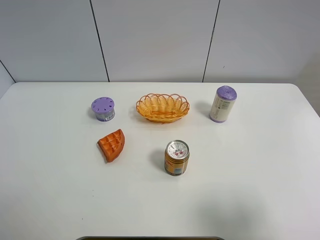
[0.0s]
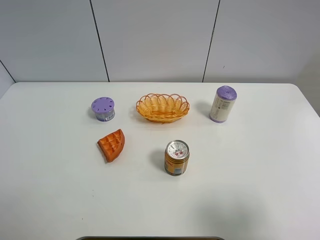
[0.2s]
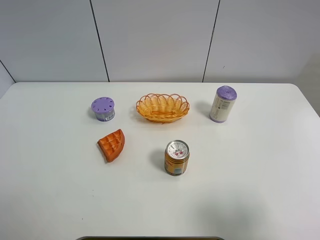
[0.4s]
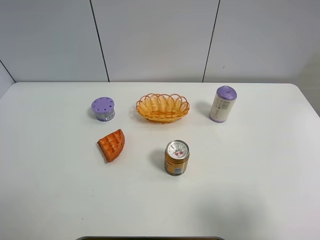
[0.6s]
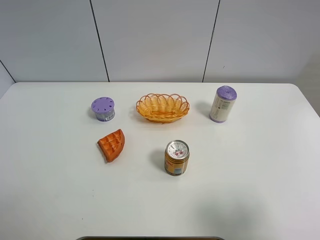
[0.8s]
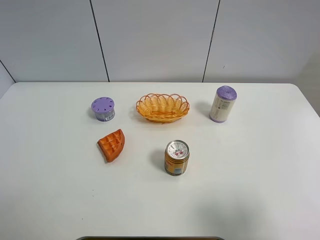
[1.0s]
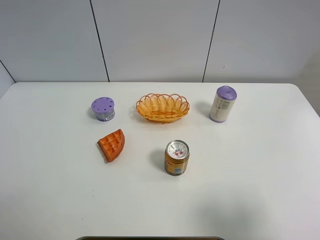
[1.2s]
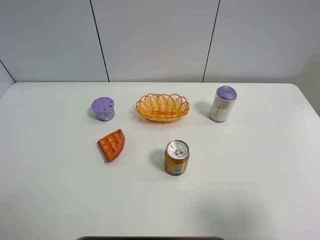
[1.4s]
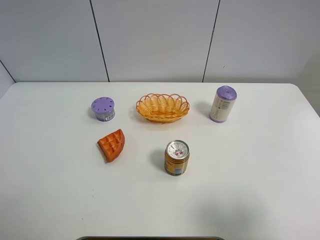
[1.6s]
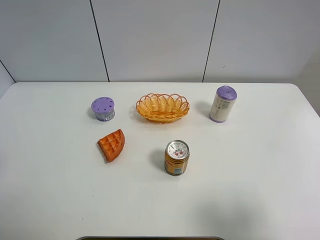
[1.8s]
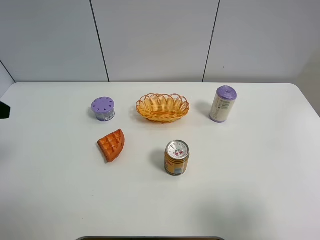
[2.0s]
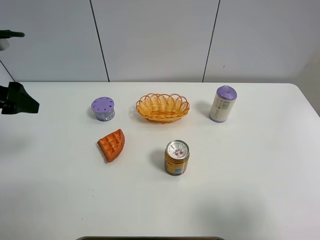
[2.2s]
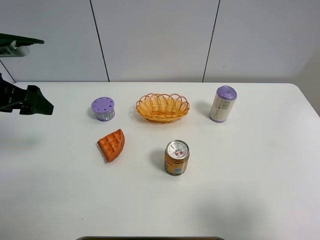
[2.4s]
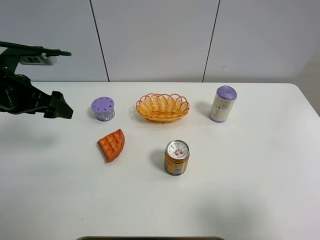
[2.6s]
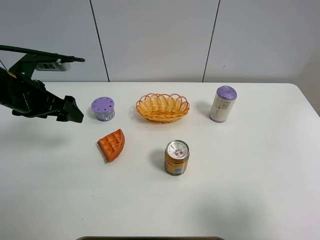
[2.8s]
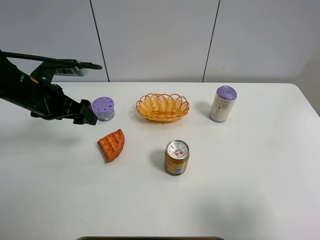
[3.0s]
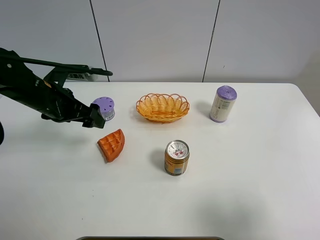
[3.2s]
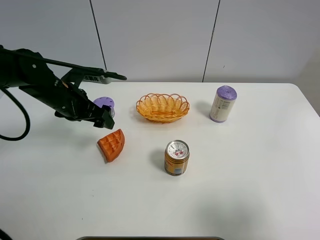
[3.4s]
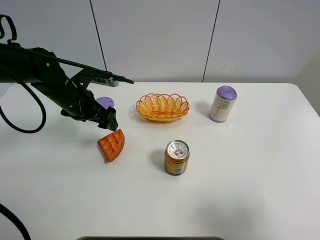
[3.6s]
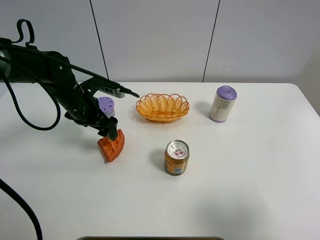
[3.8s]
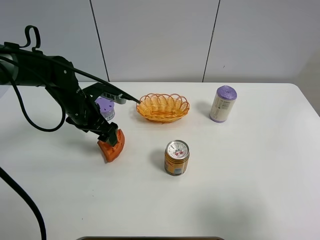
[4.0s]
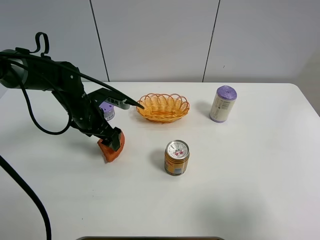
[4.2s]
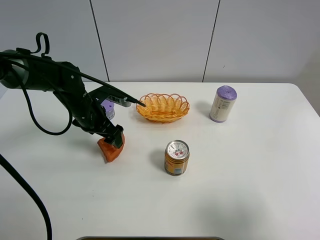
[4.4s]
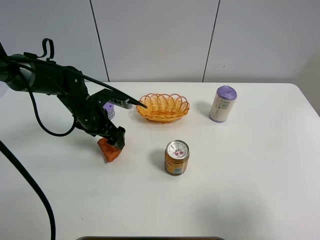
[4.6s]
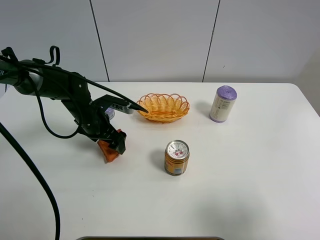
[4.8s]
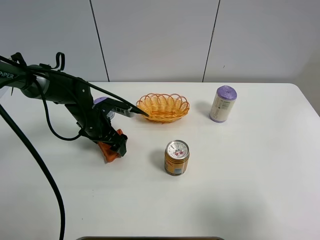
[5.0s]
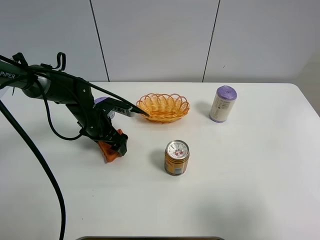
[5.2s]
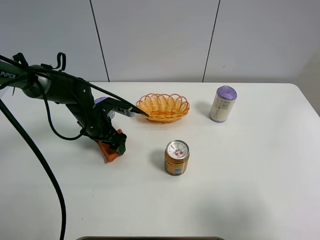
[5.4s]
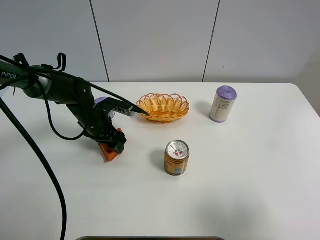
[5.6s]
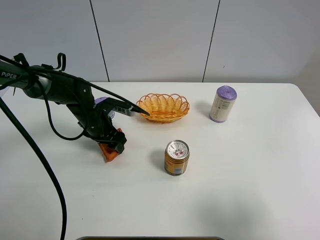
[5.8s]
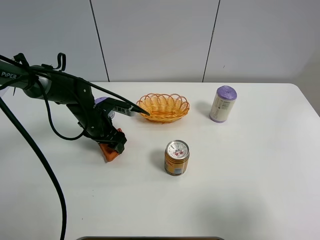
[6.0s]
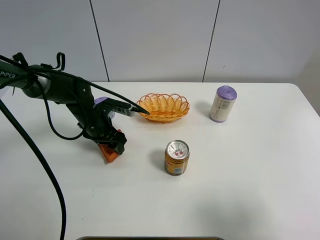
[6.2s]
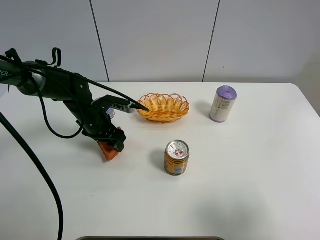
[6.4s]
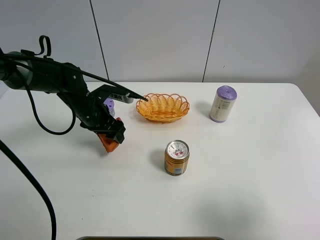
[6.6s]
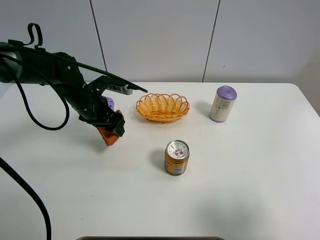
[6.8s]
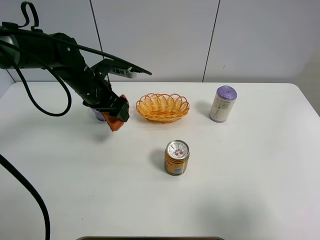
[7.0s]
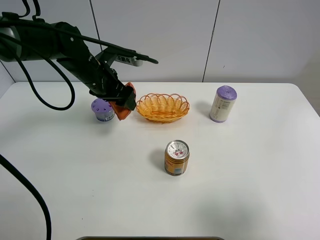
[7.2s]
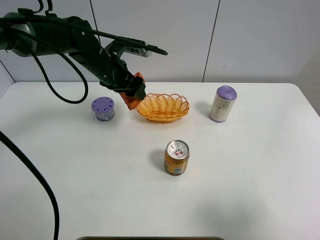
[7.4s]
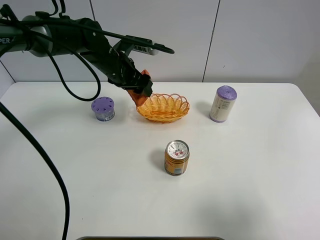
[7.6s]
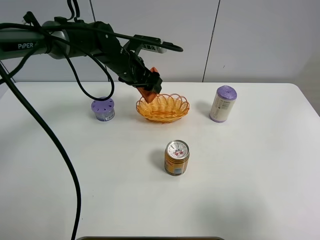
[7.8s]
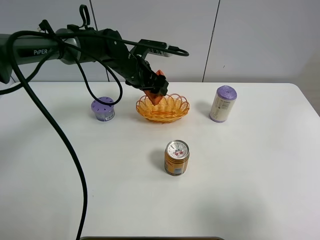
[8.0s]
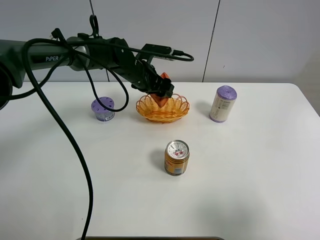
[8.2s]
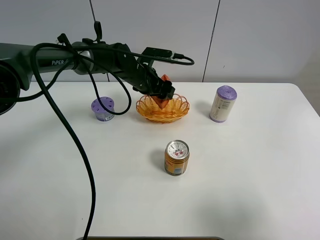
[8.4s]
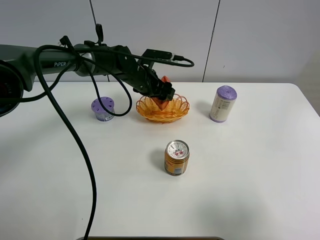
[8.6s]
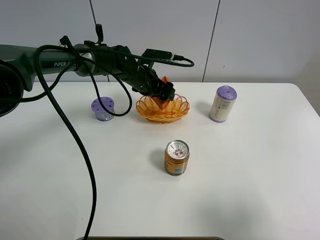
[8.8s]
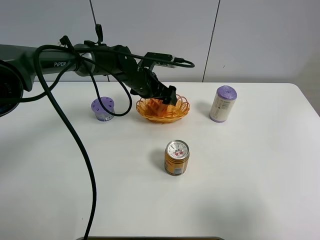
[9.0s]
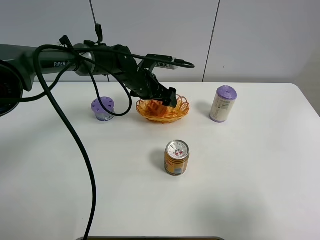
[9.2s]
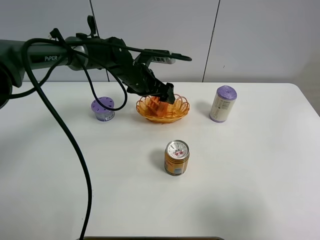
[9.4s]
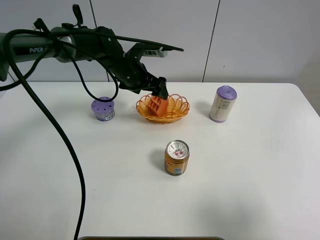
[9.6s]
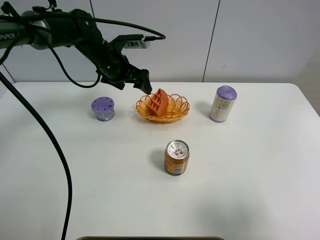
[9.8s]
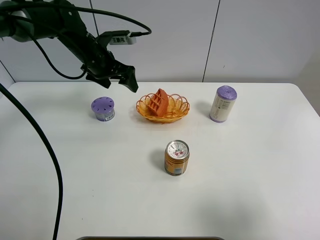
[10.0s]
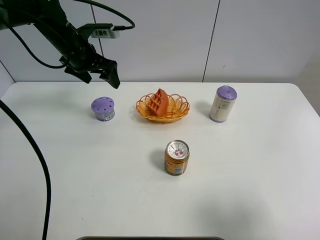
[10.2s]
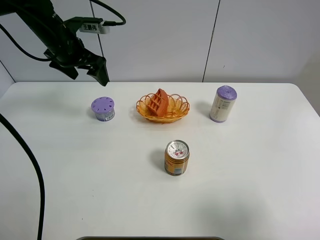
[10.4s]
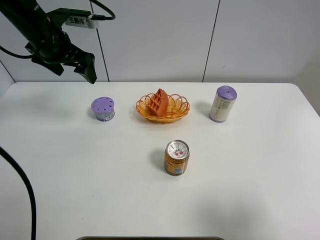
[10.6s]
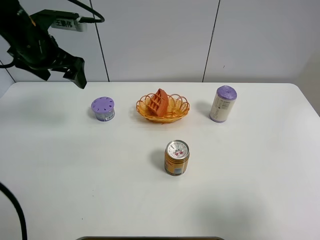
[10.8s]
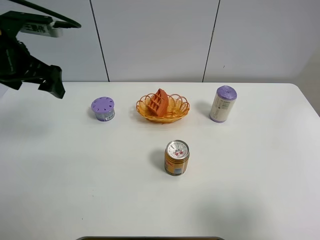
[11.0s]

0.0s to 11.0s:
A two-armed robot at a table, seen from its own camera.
Task of the whole recording: Put the bakery in the basket.
1.6s to 3.2s: The left gripper travels forward, downward and to the right by roughly 25 cm.
3.2s to 4.8s: The left gripper goes about 10 cm downward and to the right.
4.8s to 6.2s: The left gripper closes.
6.2s to 7.8s: The left gripper moves upward, to the right and forward, approximately 15 cm.
7.8s to 9.4s: The left gripper opens up.
9.4s to 11.0s: The left gripper heads to the left, upward and backward, covering approximately 25 cm.

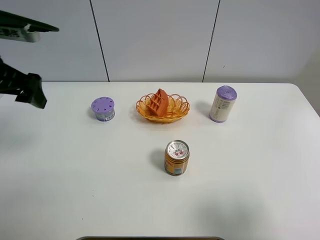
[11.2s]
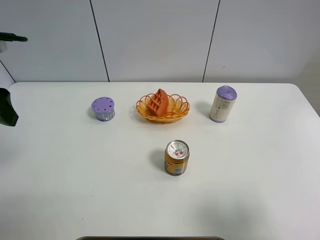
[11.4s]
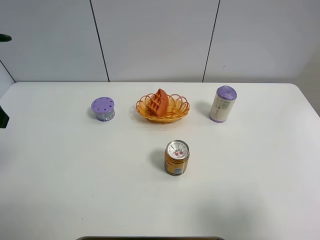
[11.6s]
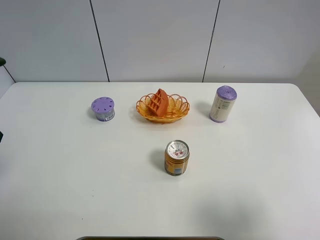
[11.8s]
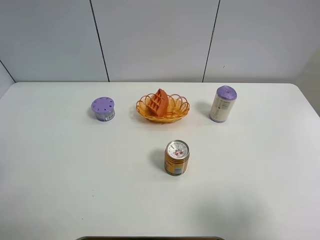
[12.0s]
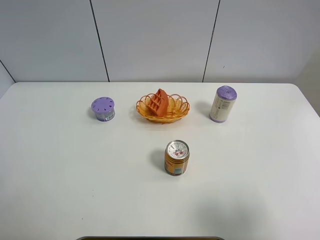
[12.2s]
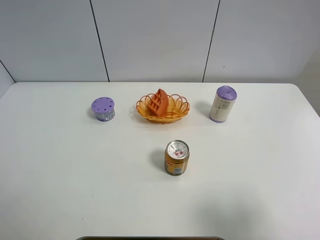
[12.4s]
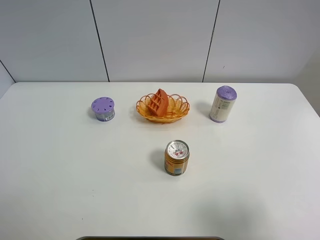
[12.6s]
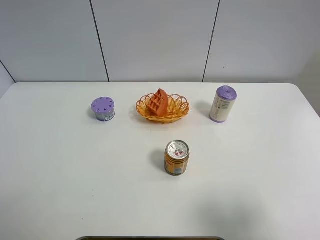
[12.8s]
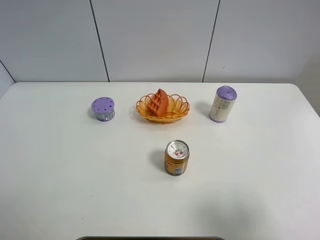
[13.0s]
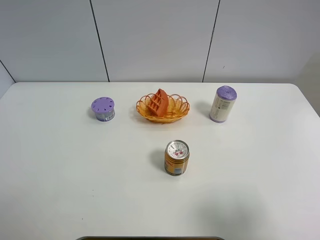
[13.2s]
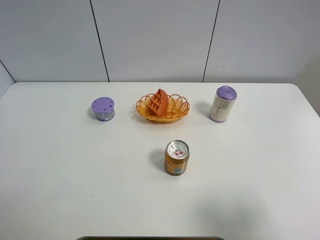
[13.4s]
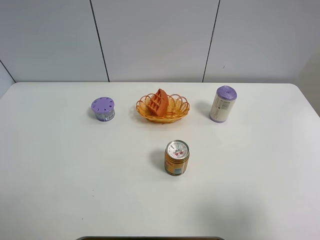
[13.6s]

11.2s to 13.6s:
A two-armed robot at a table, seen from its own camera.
Task of the whole recording: Put the bakery in the basket.
11.2s to 12.4s: The left gripper is displaced backward by about 15 cm.
